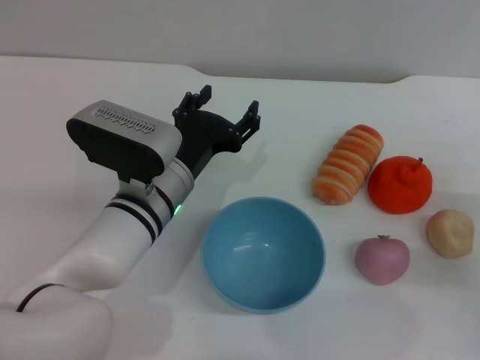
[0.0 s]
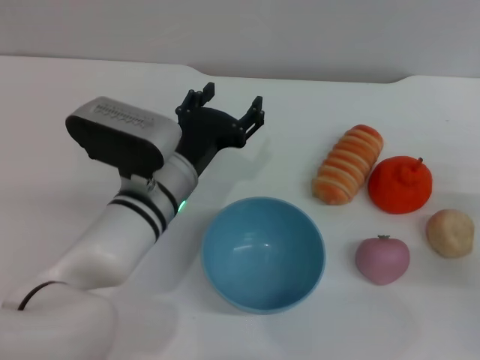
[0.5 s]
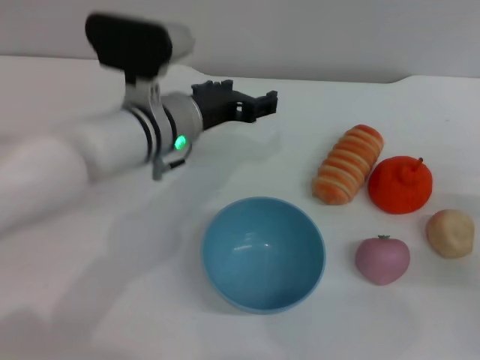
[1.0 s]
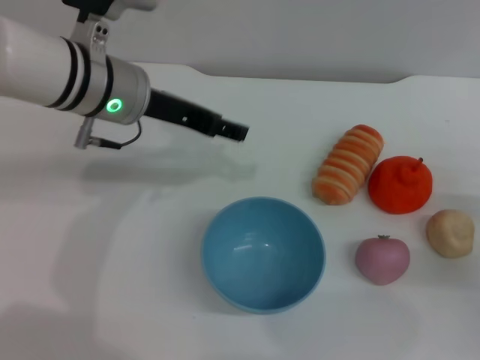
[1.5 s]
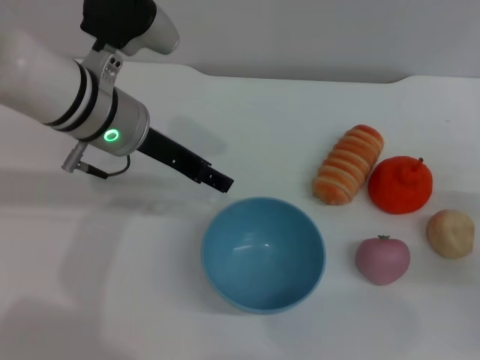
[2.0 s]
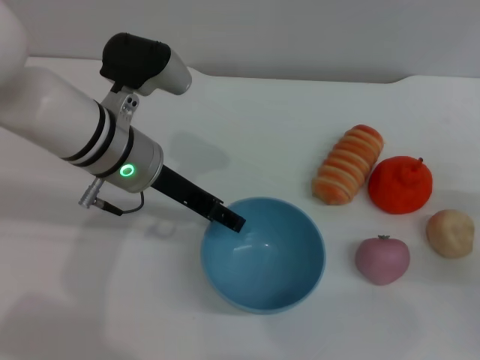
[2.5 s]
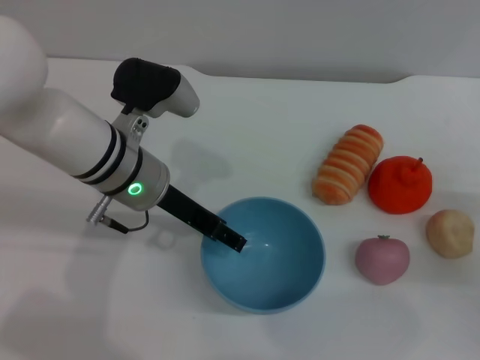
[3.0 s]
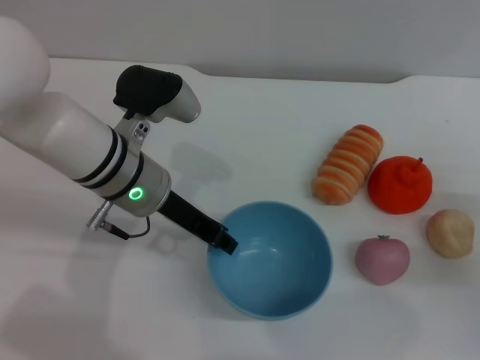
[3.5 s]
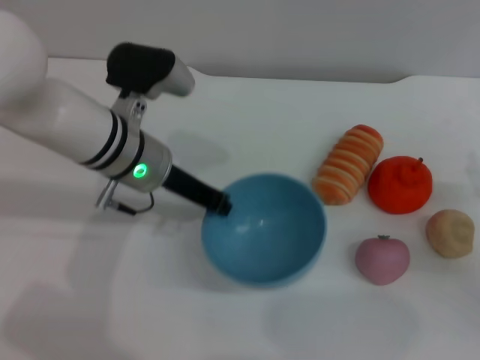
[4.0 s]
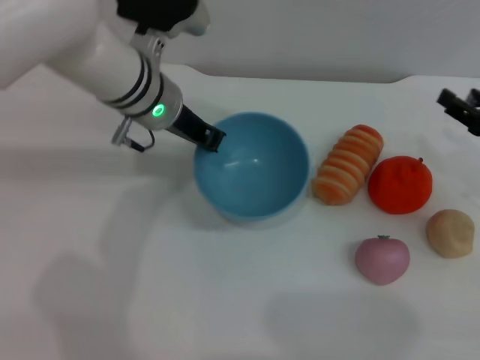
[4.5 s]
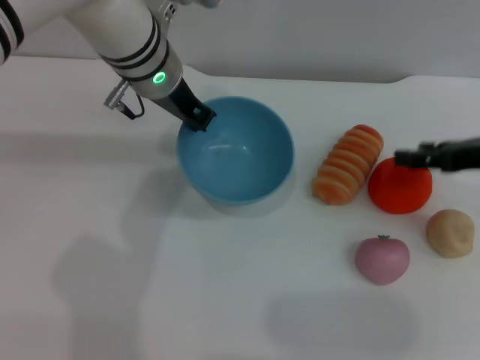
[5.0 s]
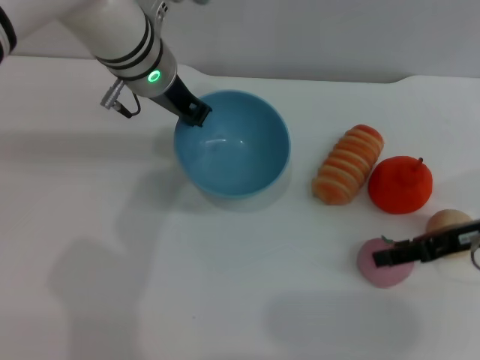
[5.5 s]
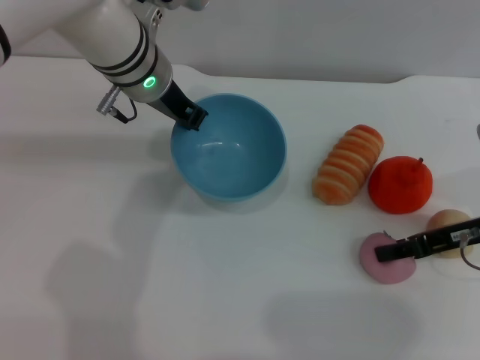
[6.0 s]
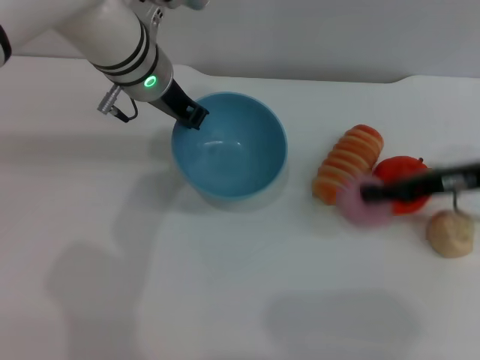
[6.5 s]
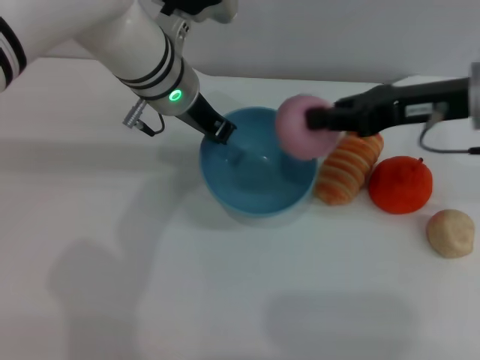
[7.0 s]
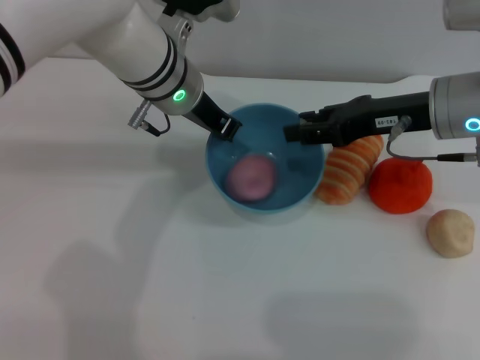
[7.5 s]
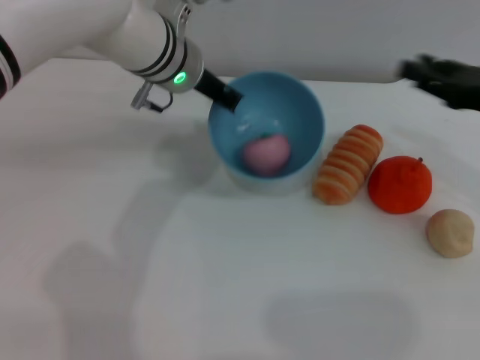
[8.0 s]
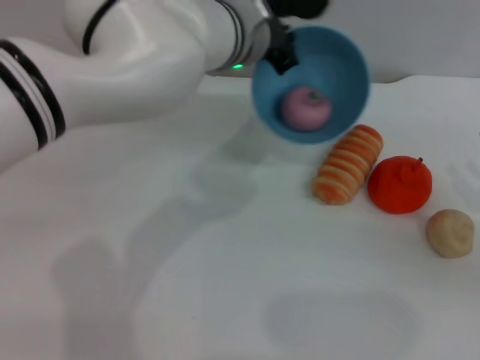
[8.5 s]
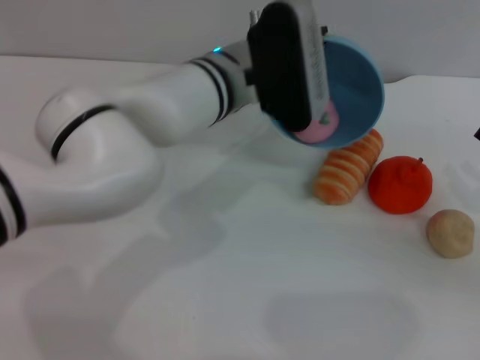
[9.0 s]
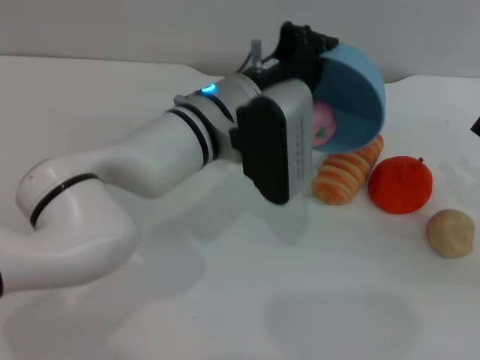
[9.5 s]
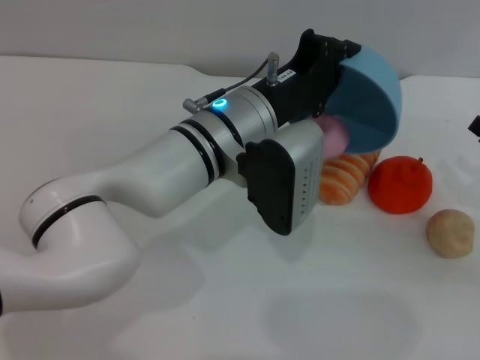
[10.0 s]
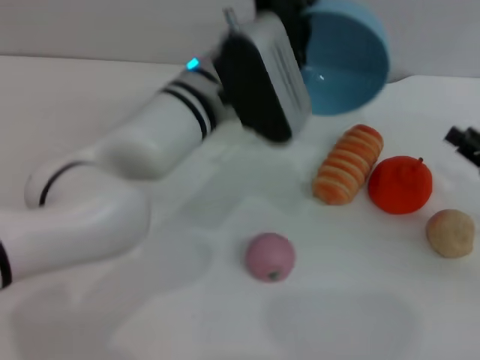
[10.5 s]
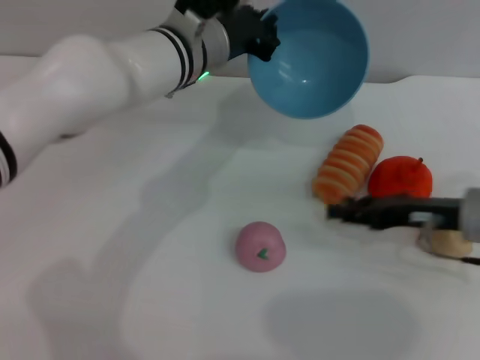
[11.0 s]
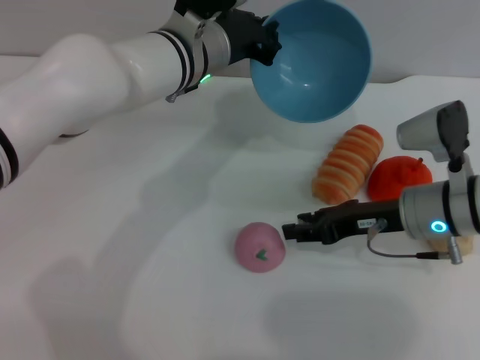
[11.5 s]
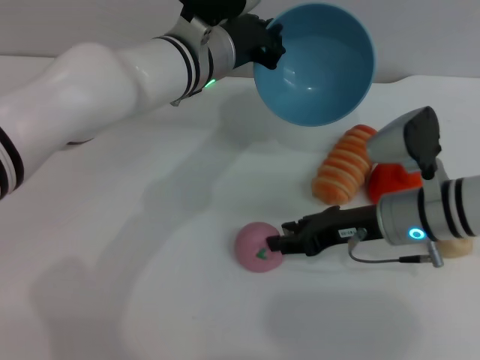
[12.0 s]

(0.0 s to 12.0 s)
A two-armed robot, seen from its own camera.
Task of the whole recording: put the peach into the blue bowl and pour it out repeatedly.
Step, 0.0 s - 4.0 s: Pick up the bowl with the left gripper.
Step, 4.5 s - 6.5 s: Pick up the peach with the right gripper.
Step, 7.0 s - 7.5 s: Place the peach into the bowl.
Step, 8.0 s - 10.0 s: Pour the peach out of bowl.
0.0 s - 2.0 s: The left gripper moves upward and forward, about 15 cm.
2.0 s - 4.0 s: The left gripper changes place by approximately 5 cm, and closes up.
4.0 s - 6.0 s: The left gripper moves forward and upward, some 10 cm; the right gripper travels to the left, upward and forward by some 10 cm.
6.0 s - 8.0 s: The right gripper is displaced upward by approximately 5 cm, reaches some 10 cm to the left, then returns, and closes, then opens again.
8.0 s - 10.0 s: The right gripper travels downward and backward by approximately 10 cm. The left gripper goes about 10 cm backward and to the right.
10.0 s - 12.0 s: The right gripper heads to the left, covering approximately 20 cm, while the left gripper is displaced forward by about 10 cm.

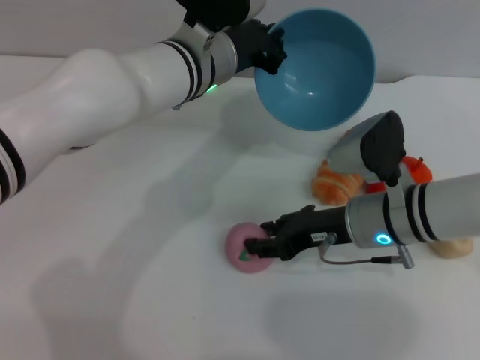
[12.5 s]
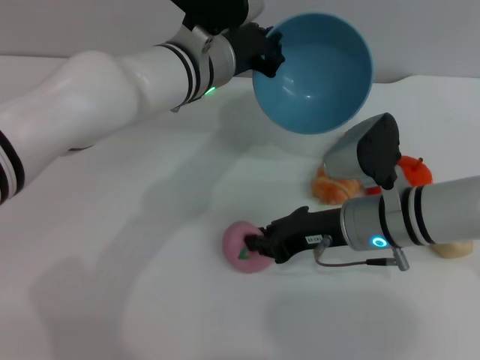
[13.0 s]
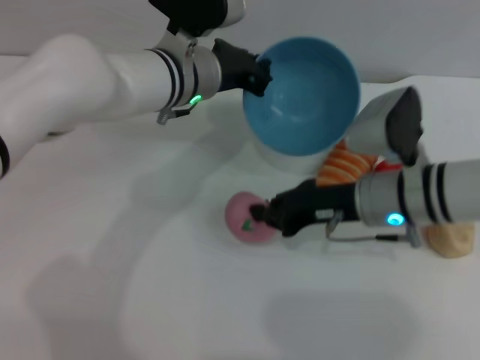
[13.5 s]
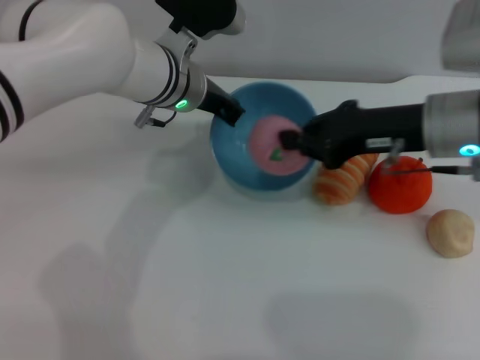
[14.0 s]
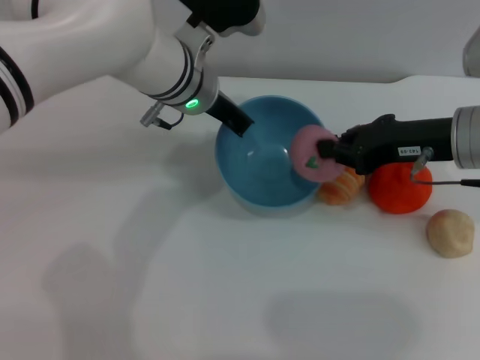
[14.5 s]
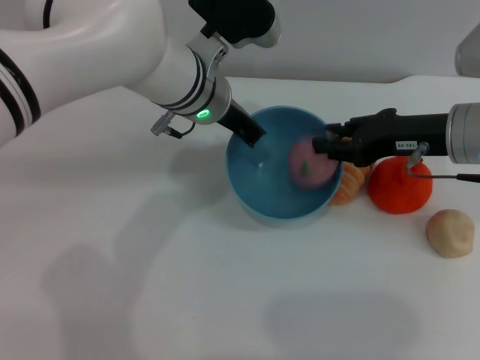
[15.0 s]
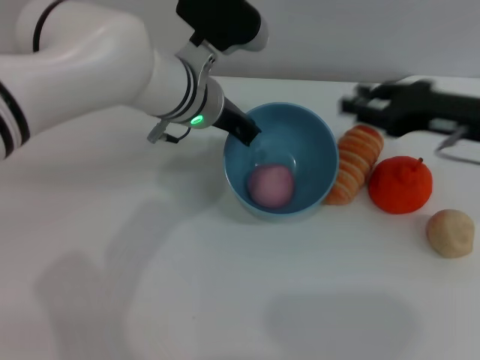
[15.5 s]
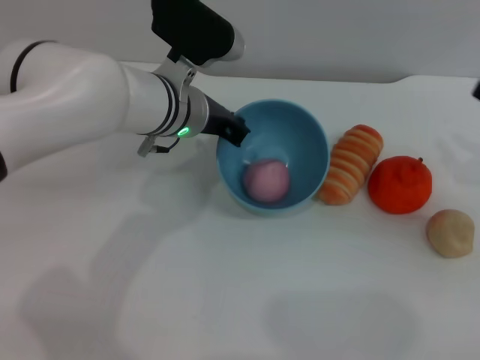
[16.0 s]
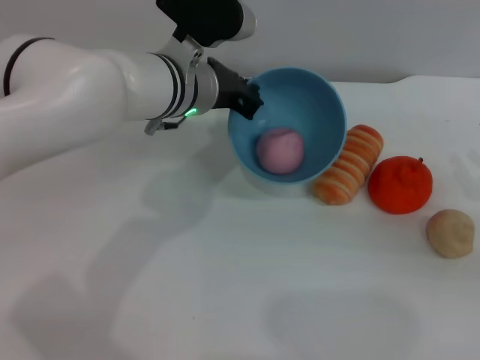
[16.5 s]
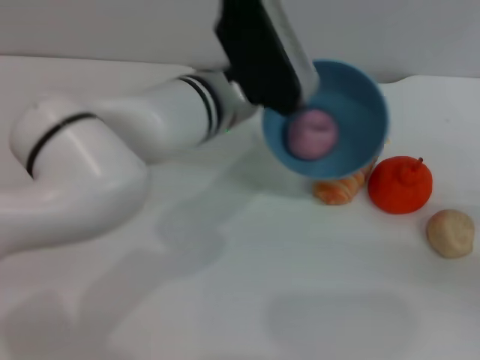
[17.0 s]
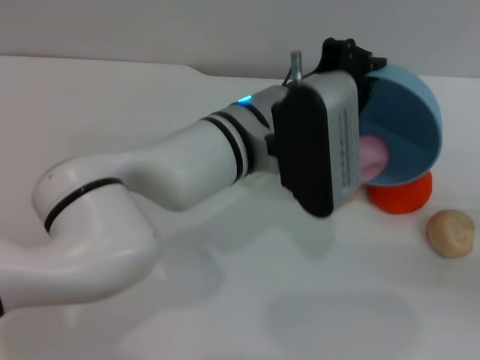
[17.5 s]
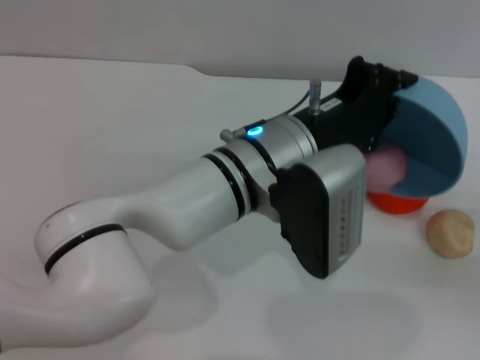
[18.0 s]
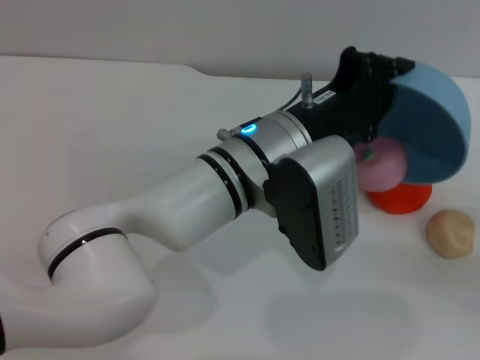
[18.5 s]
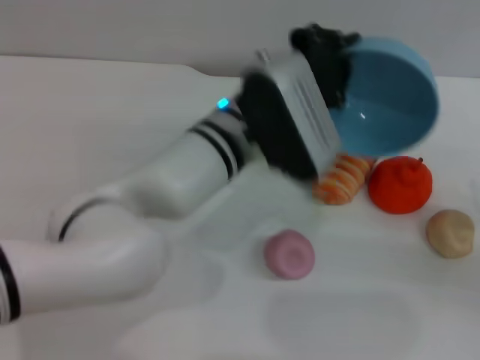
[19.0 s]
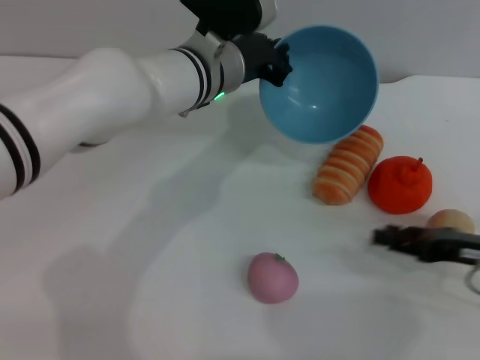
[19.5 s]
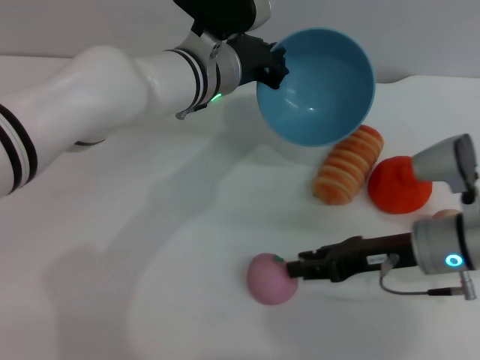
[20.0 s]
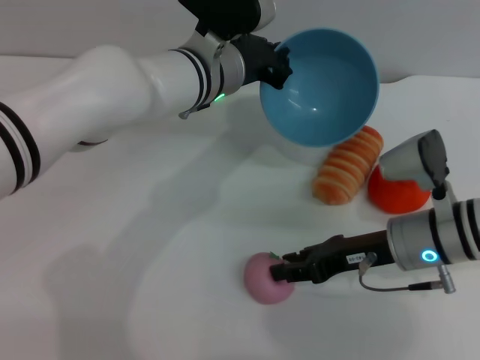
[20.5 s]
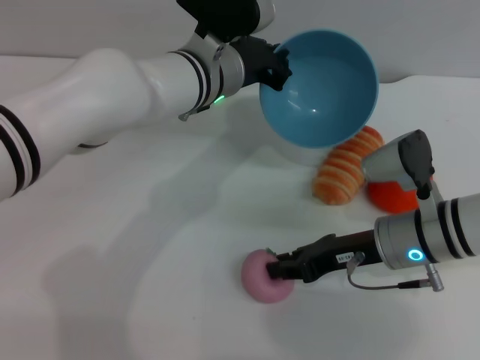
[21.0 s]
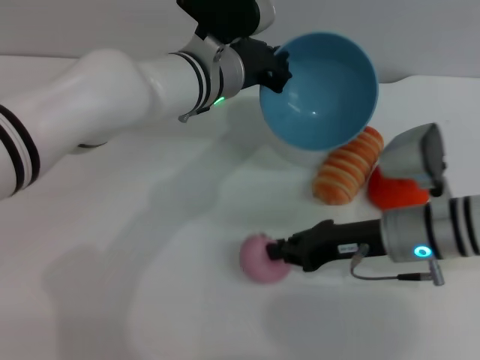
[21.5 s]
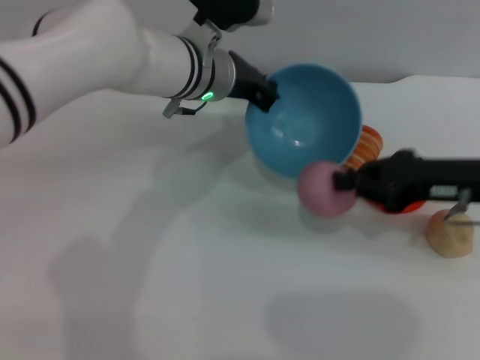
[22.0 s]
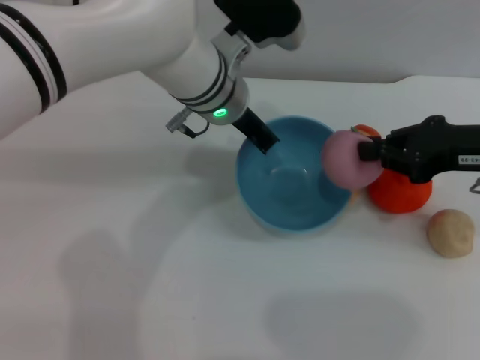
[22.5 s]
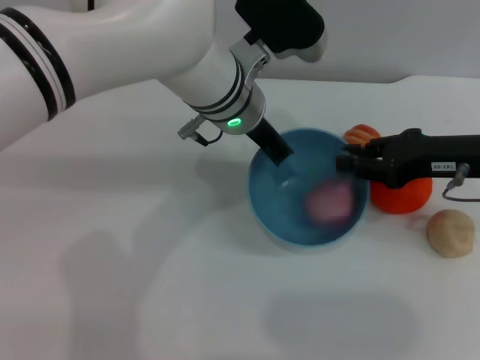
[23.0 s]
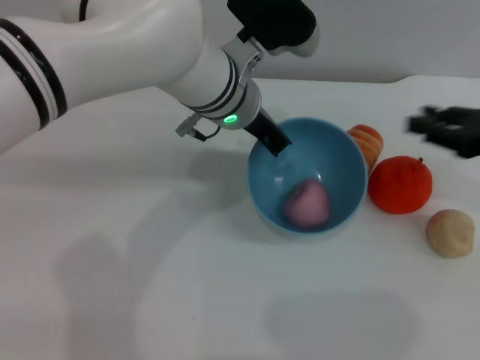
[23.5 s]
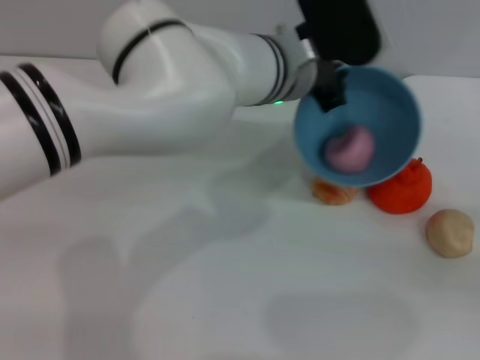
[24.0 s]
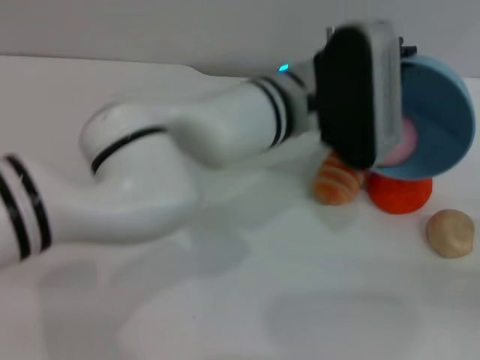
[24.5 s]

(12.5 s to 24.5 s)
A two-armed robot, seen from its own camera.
Task of the whole recording: put the peach into the blue bowl and pour it out repeatedly.
Step, 14.0 s - 15.0 s: Place the peach into the bowl.
Step, 15.5 s - 19.0 s: Pour the peach out of bowl.
Step, 19.5 s - 21.5 s: Pick up the peach with the right gripper.
Step, 22.0 s - 23.0 s: Place the peach into the bowl.
12.5 s - 14.5 s: The right gripper moves upward and to the right, approximately 10 cm, and closes its fingers.
14.5 s - 16.5 s: The right gripper heads to the right, downward and backward, covering approximately 20 cm, and opens up.
16.5 s - 18.5 s: The left gripper heads backward and to the right, covering about 10 cm.
18.5 s - 20.5 s: The right gripper shifts some 20 cm to the left. Meanwhile the left gripper travels forward and to the left by roughly 15 cm.
20.5 s - 22.5 s: The right gripper moves upward and to the right, about 15 cm.
22.5 s - 24.5 s: The right gripper goes approximately 20 cm to the right, downward and backward, and opens. The left gripper heads to the right, covering roughly 5 cm.

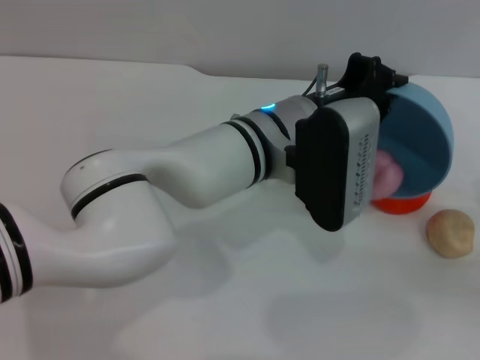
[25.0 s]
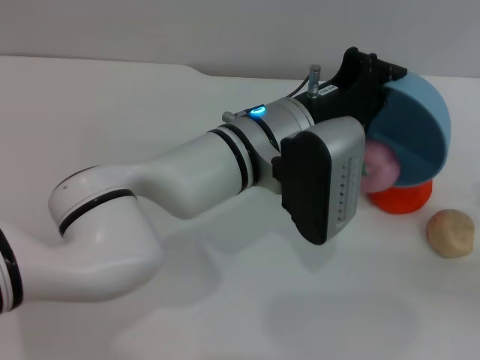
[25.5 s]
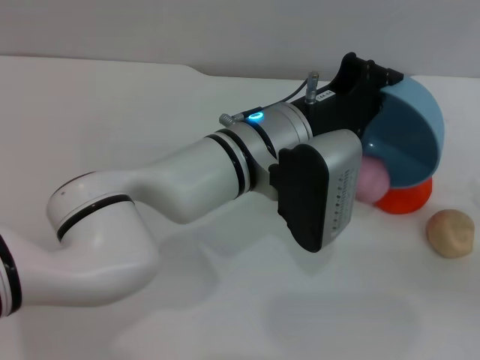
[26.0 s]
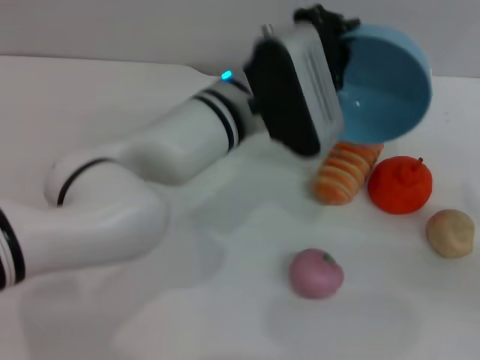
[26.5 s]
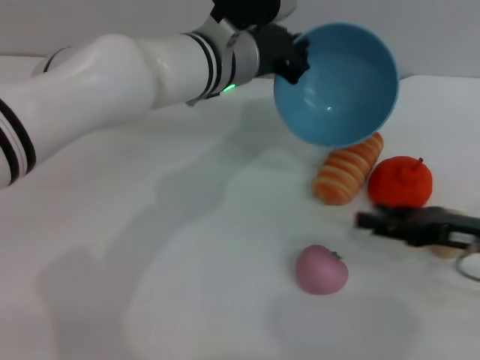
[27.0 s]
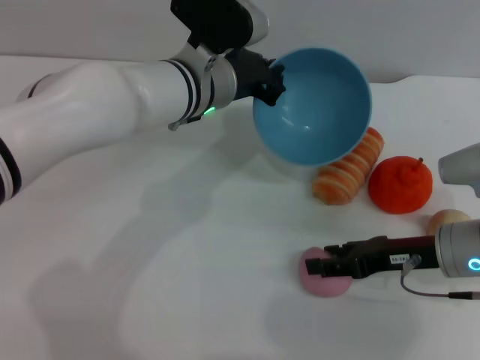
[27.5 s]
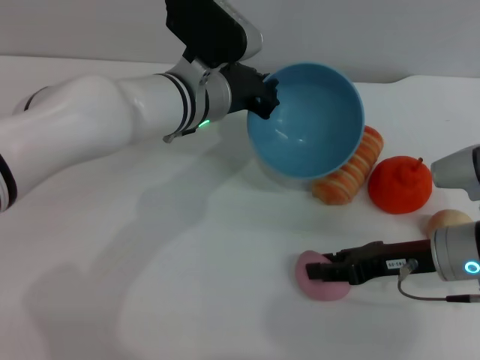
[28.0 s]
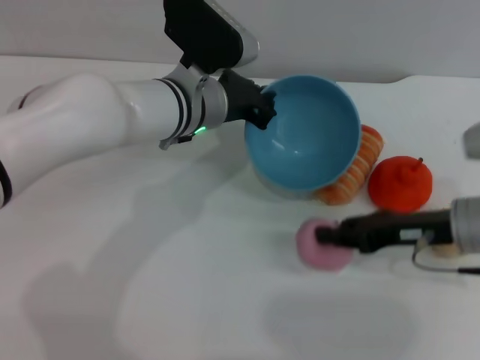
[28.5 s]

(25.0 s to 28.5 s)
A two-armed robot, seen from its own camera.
Task of the whole recording: put the peach into the blue bowl and pour it out repeatedly.
25.0 s - 27.0 s: The right gripper travels to the left by approximately 10 cm; the left gripper moves forward and to the left, approximately 10 cm.
27.0 s - 28.5 s: The right gripper shifts approximately 5 cm to the left, and closes up, while the left gripper moves some 5 cm.
